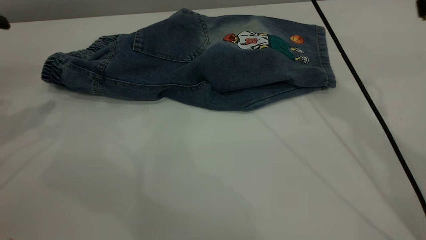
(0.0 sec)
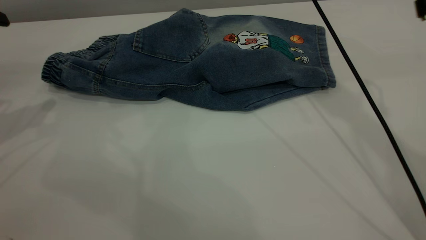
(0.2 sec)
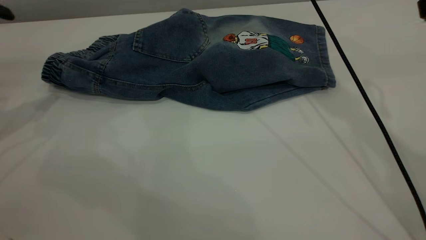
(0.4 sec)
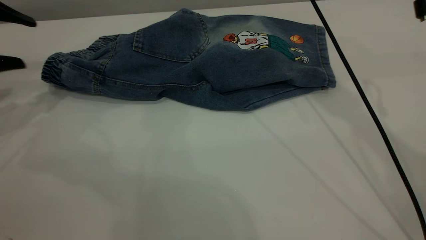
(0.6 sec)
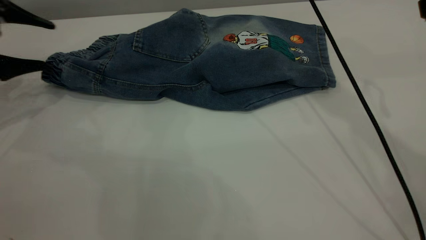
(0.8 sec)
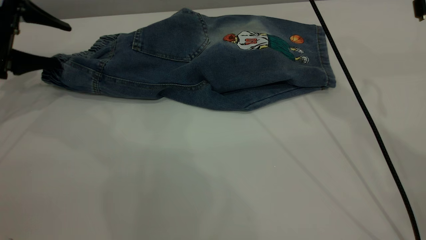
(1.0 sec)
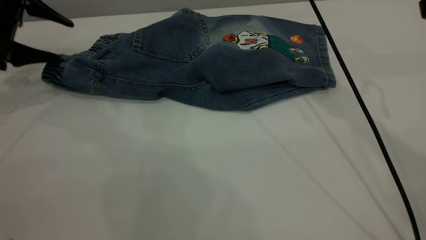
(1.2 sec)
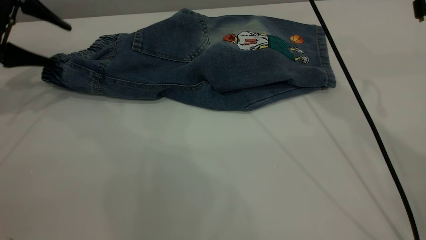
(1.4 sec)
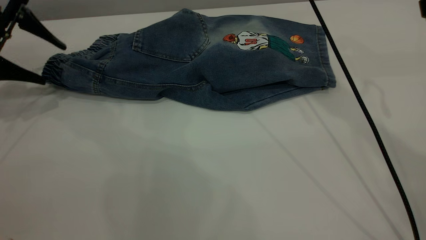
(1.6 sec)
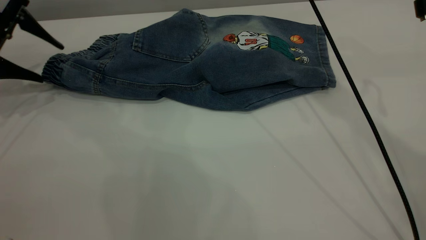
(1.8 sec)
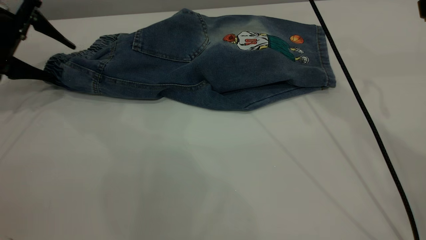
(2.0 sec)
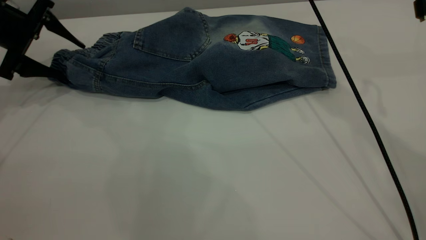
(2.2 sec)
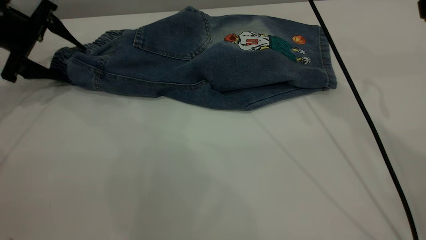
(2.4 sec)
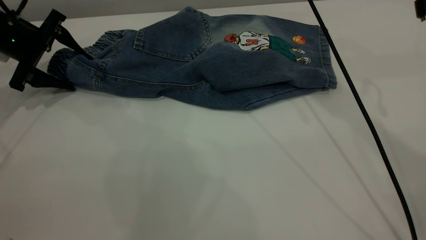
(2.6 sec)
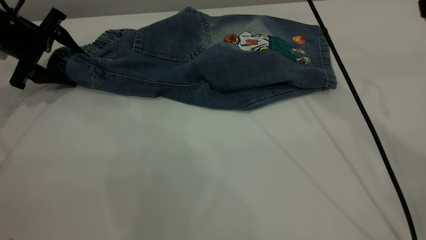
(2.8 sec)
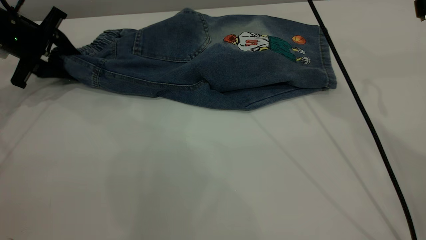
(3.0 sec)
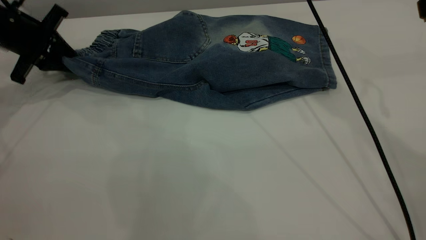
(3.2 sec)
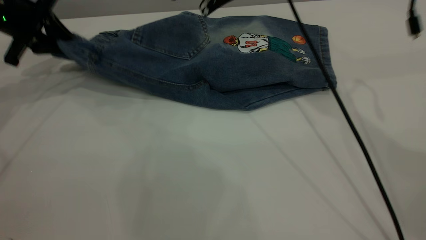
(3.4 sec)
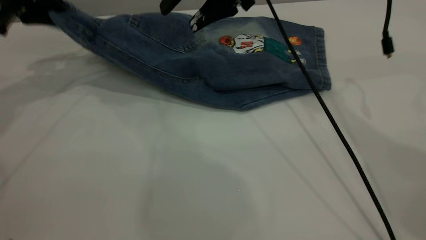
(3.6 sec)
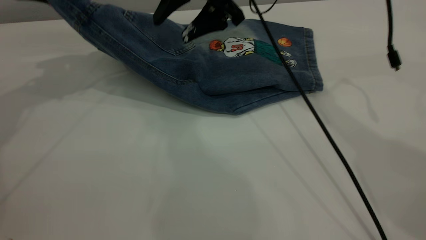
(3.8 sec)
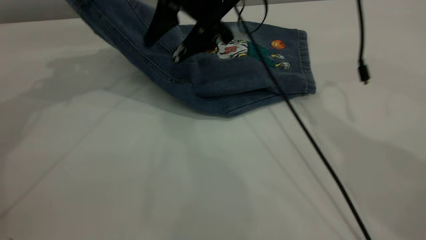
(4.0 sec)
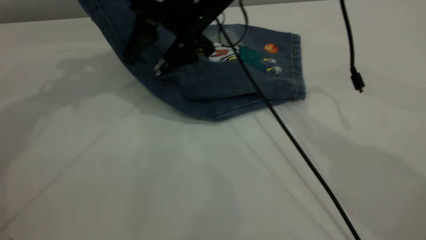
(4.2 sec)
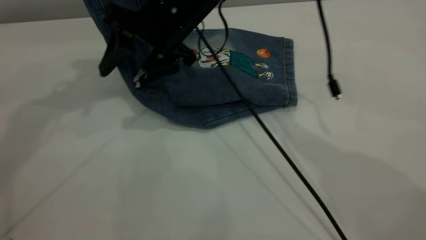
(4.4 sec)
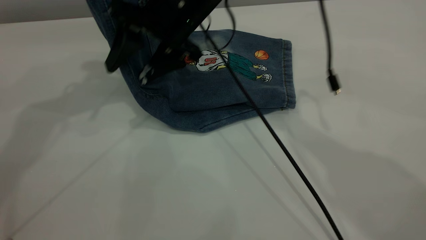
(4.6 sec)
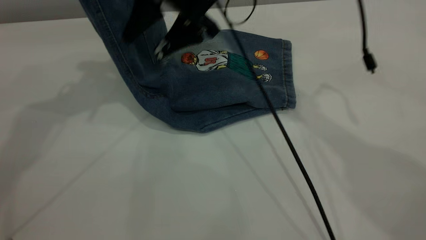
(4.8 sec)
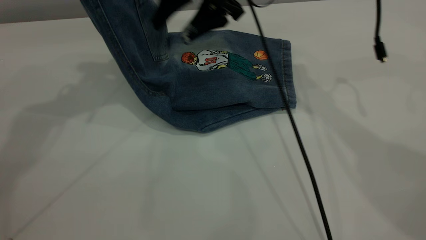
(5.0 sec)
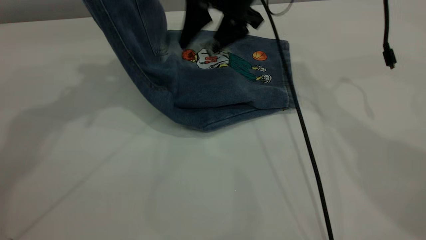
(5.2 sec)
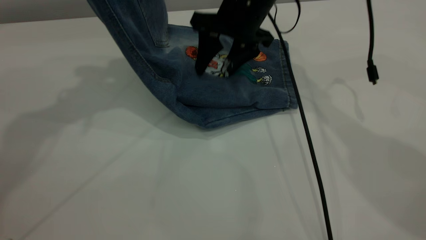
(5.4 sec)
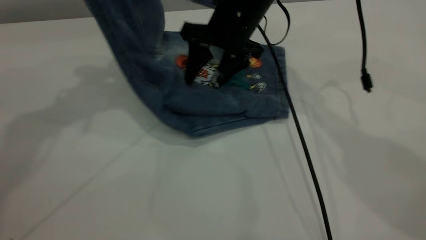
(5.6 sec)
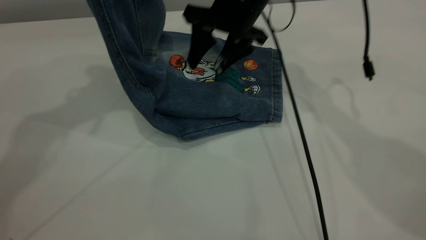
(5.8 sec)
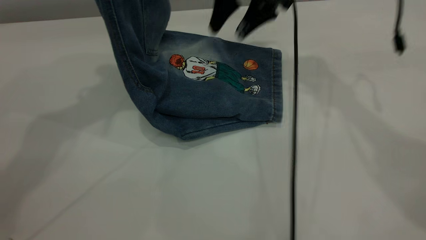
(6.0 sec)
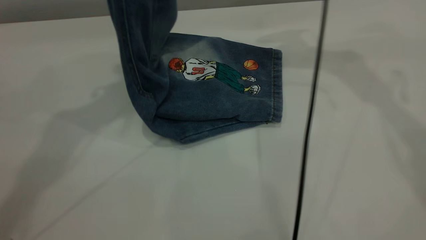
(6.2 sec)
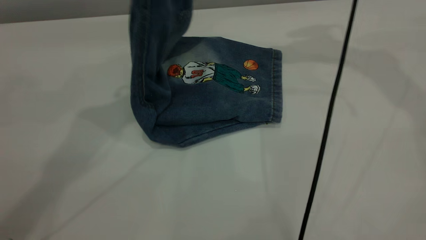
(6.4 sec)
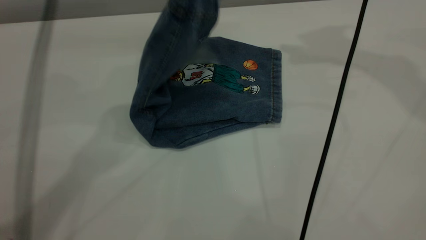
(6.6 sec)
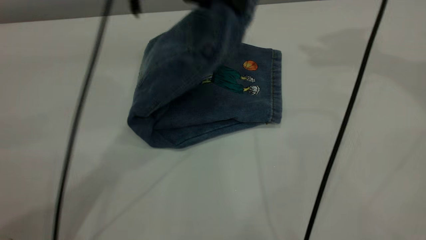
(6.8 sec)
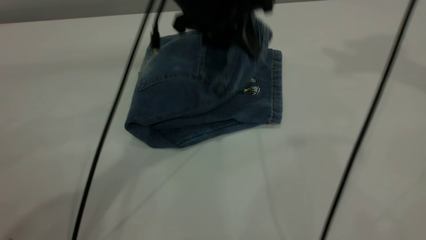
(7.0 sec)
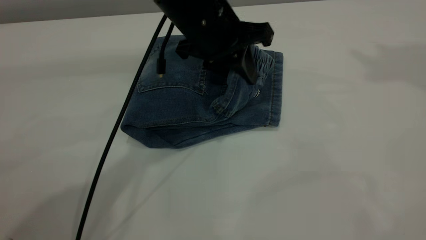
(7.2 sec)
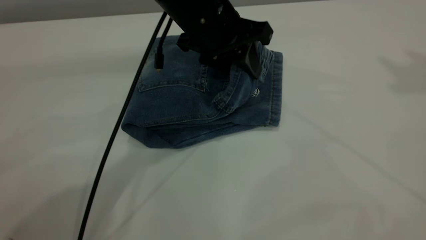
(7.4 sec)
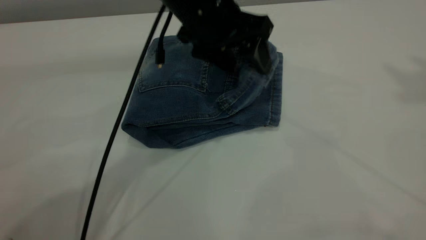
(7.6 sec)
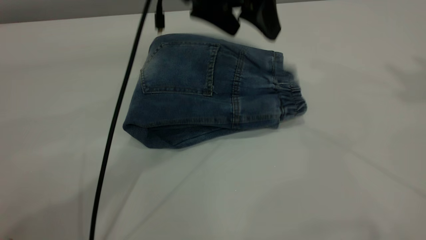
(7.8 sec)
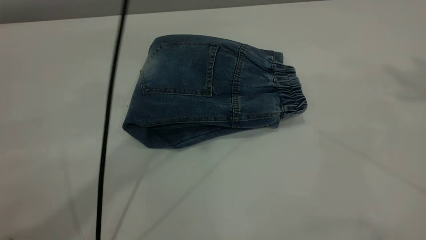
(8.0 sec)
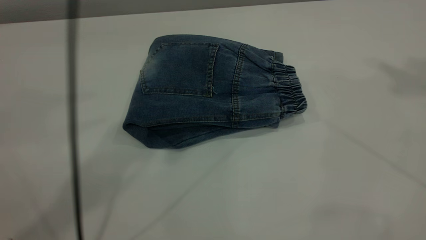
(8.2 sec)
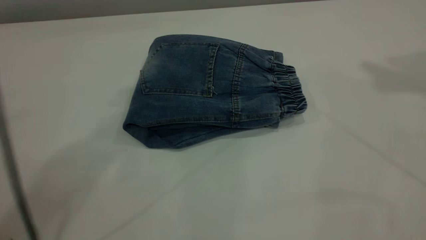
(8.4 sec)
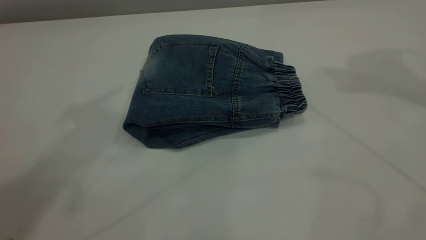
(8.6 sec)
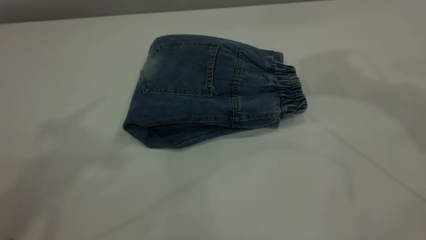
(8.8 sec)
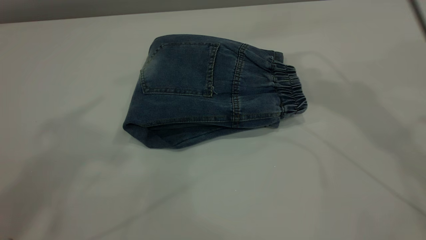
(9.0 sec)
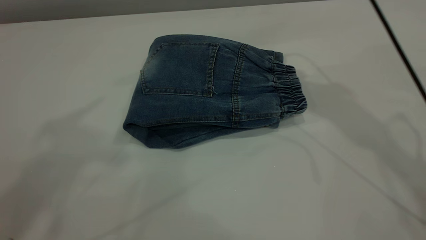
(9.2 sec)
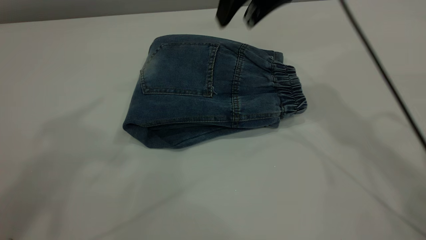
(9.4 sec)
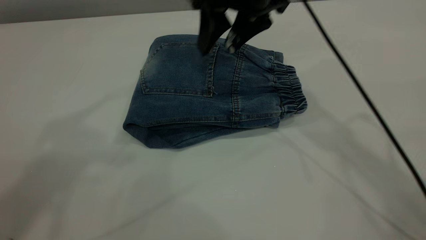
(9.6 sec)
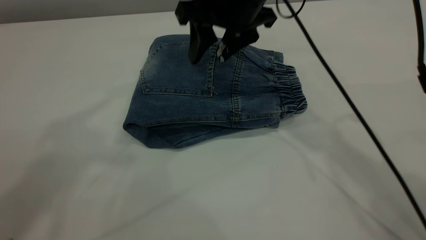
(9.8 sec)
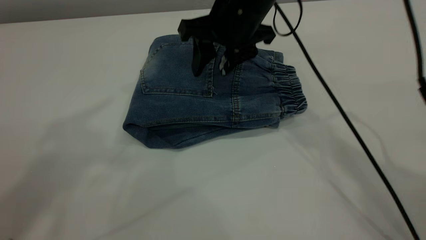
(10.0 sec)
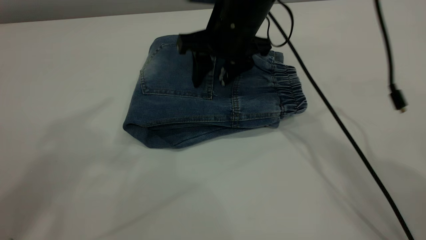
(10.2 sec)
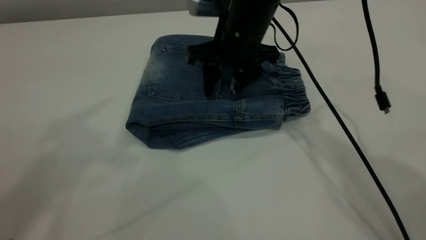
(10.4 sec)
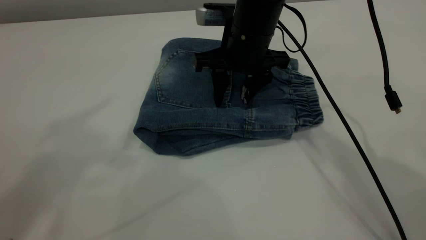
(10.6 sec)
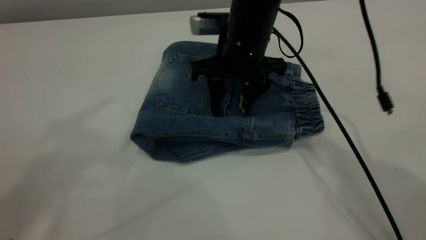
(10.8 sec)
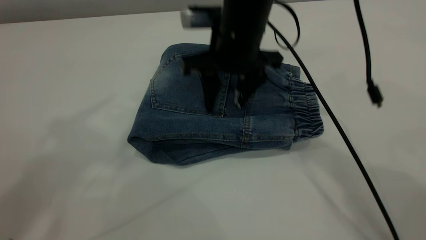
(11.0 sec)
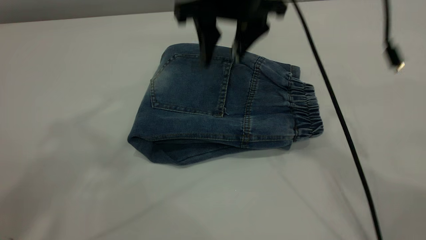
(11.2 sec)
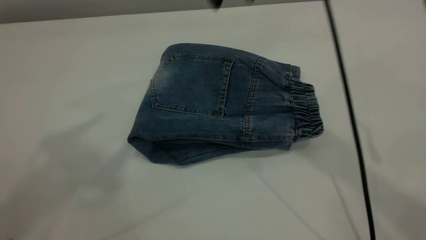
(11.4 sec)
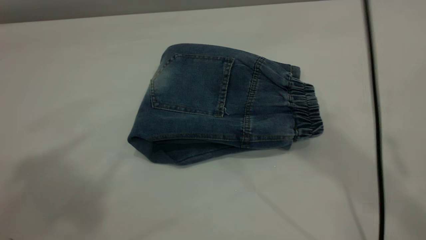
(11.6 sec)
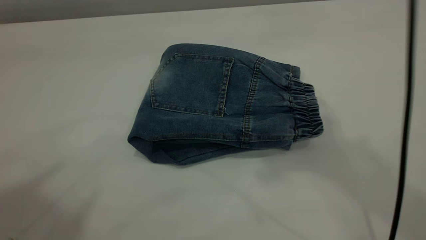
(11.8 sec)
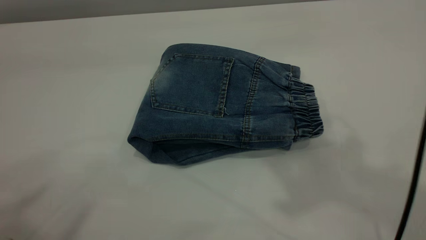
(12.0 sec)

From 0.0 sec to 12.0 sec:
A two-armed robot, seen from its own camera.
Step, from 0.0 sec to 8.0 sec: Fold the pants from left to right.
From 0.0 sec to 1.6 sec: The left gripper moves forward and downward, roughly 10 cm.
From 1.6 sec to 3.0 sec: The left gripper shifts by about 5 cm, and closes up.
From 3.0 sec to 4.4 sec: The left gripper travels upward and to the right by approximately 25 cm. The right gripper is displaced to the left and downward by roughly 15 cm.
From 4.4 sec to 6.0 sec: The left gripper moves roughly 5 cm; the right gripper is displaced to the right and forward by roughly 15 cm.
From 6.0 sec to 7.6 sec: The left gripper travels downward and to the right by some 25 cm, and opens. Meanwhile the right gripper shifts approximately 40 cm upward, to the right and backward.
From 7.6 sec to 9.0 sec: The left gripper travels upward and to the left by about 40 cm; the right gripper moves downward and to the left, approximately 30 cm.
From 9.0 sec to 10.4 sec: The right gripper shifts approximately 20 cm downward and to the left.
From 10.4 sec to 12.0 sec: The right gripper goes some 40 cm upward and backward; the left gripper moves backward, some 15 cm.
